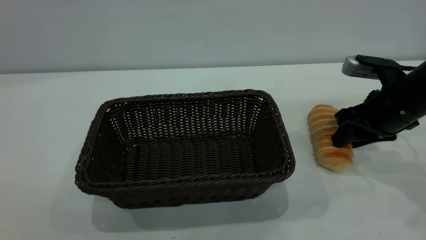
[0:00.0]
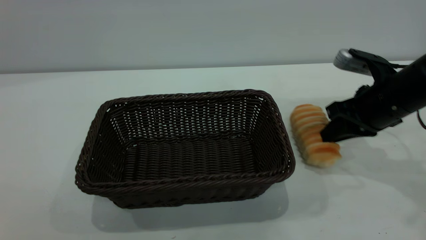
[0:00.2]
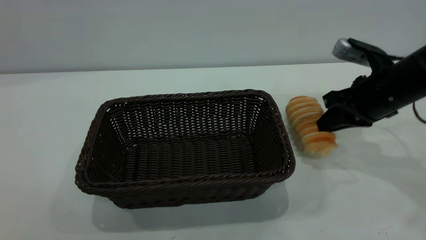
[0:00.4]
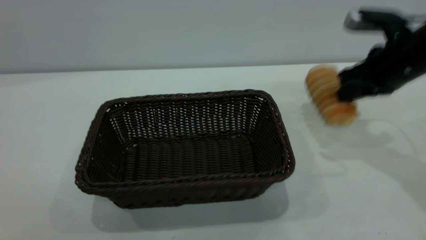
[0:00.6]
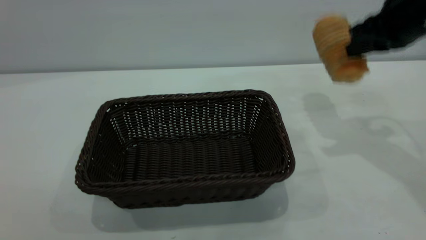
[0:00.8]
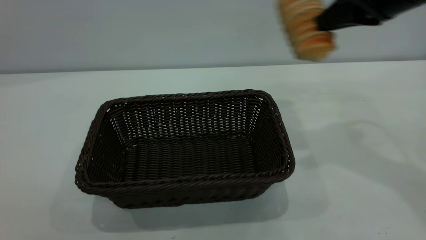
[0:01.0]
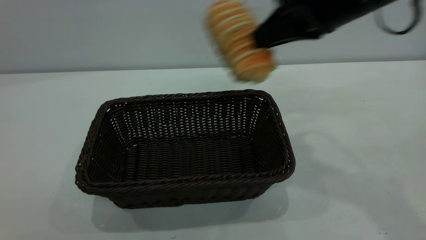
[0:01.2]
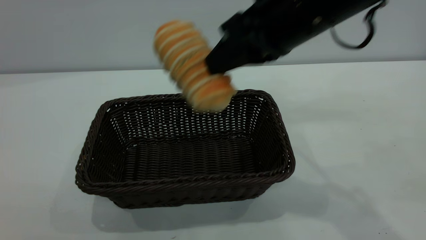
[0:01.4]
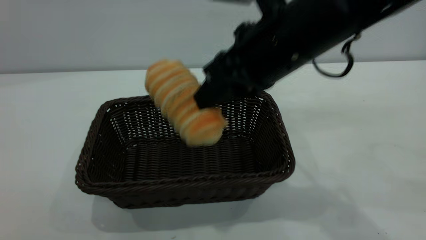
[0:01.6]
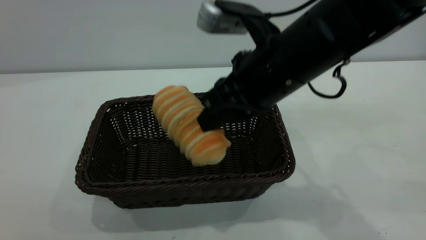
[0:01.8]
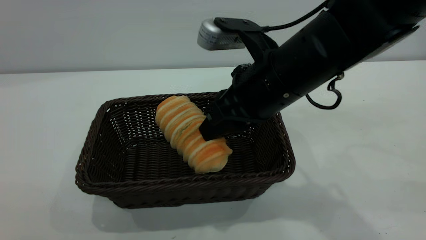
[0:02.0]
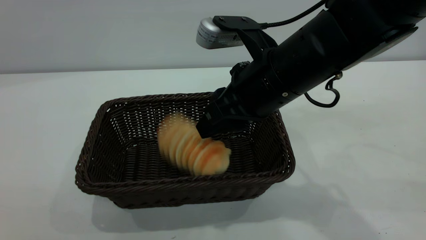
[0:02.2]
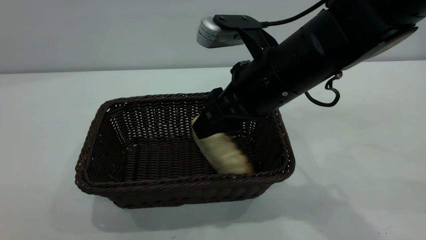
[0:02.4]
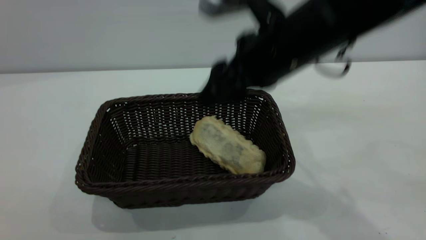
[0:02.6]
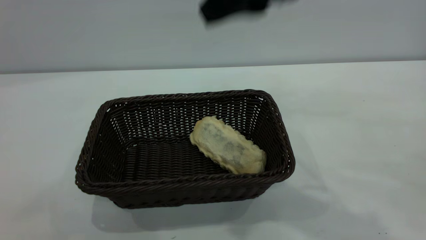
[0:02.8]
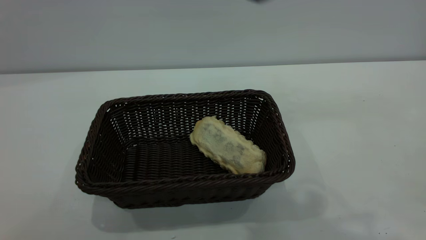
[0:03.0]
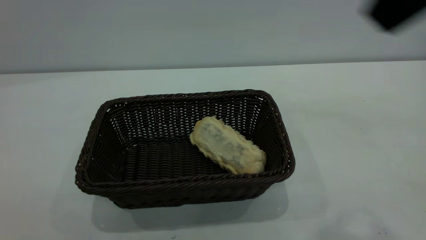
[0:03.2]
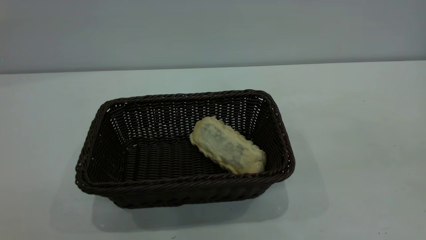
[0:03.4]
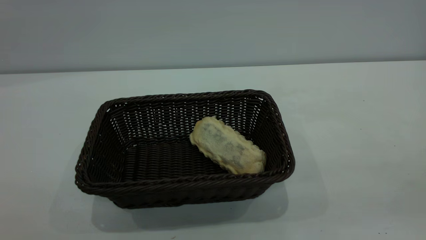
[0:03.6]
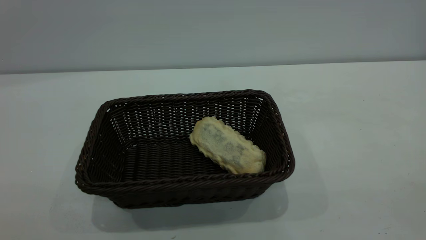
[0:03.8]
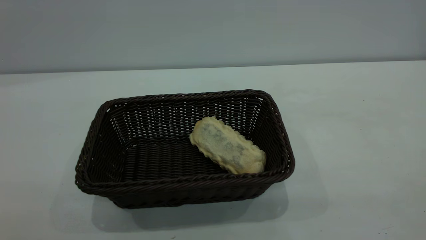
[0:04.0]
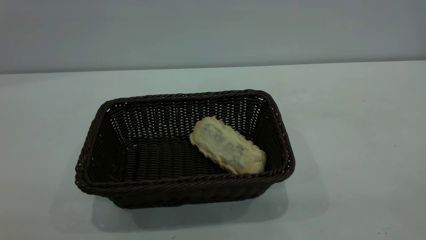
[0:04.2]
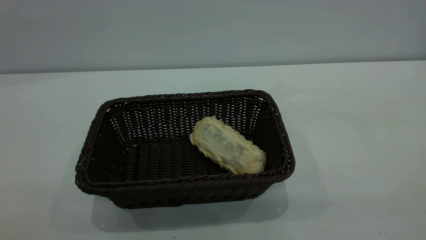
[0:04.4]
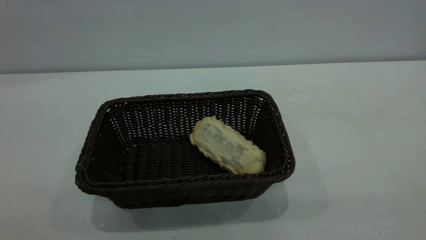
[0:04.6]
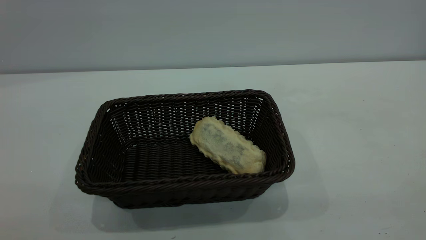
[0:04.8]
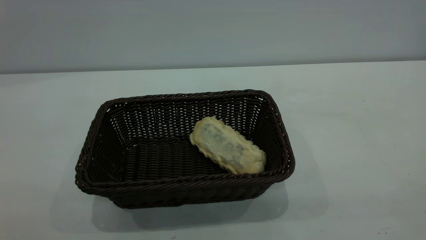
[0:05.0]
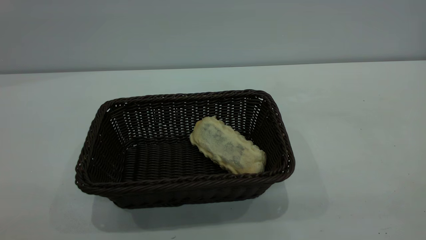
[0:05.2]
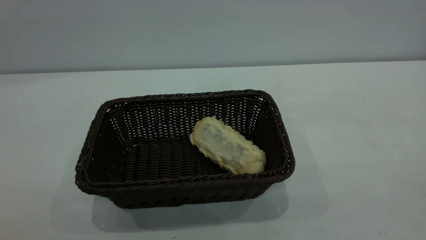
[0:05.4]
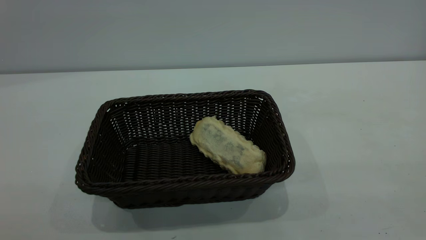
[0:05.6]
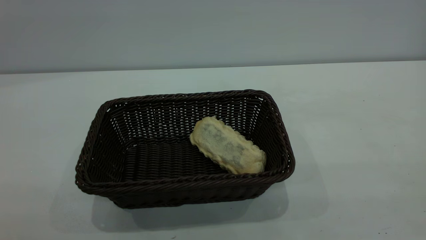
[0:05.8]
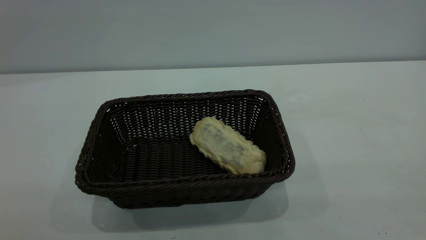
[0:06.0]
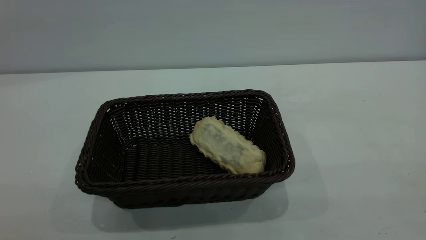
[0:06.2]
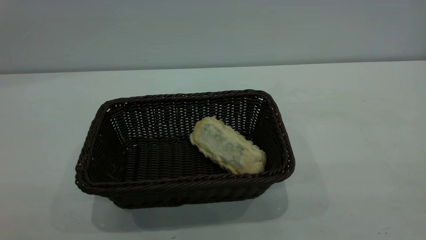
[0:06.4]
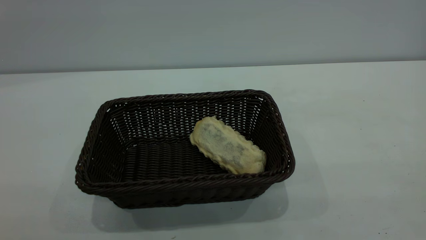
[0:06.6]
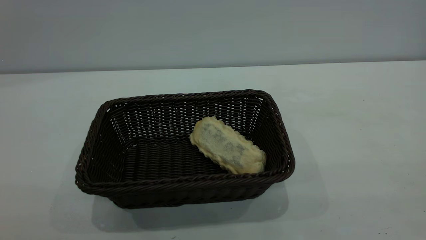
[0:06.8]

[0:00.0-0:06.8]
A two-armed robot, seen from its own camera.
Task of the whole recording: One hand grasps the black basket and places it in the middle of the table, while the other hand picks up the long bread and puts it into the black basket.
Step, 0:00.8 to 0:02.6: place the bread into the basket.
0:00.0 to 0:01.4: The right gripper heads to the left and upward, covering some 20 cm, and closes its fingers.
0:01.4 to 0:02.8: The right gripper goes some 10 cm upward, and opens.
0:02.8 to 0:04.0: The right gripper heads backward and to the right, covering some 35 cm; the left gripper is displaced downward and forward by some 15 cm.
